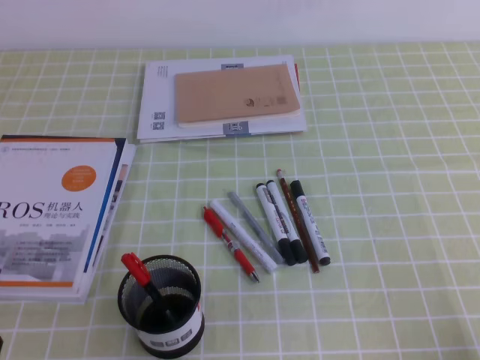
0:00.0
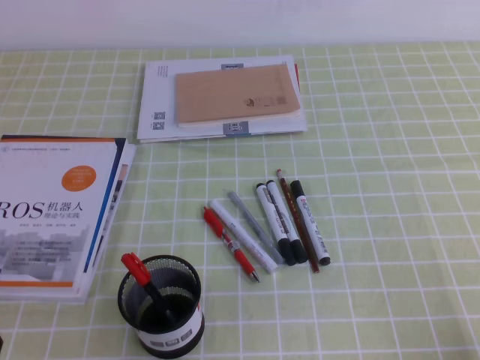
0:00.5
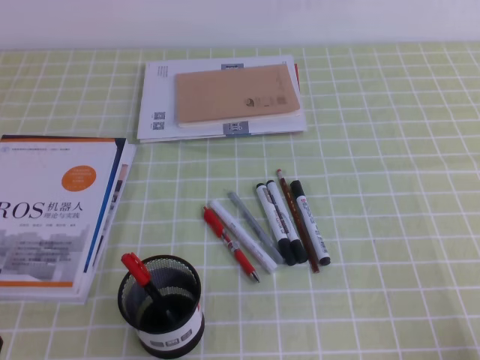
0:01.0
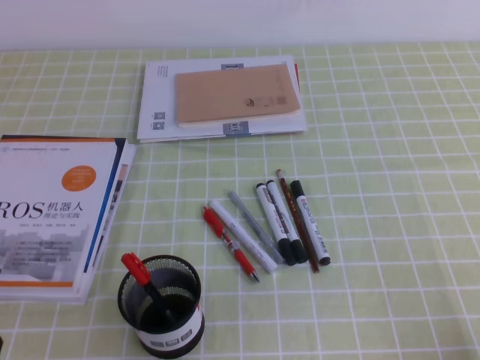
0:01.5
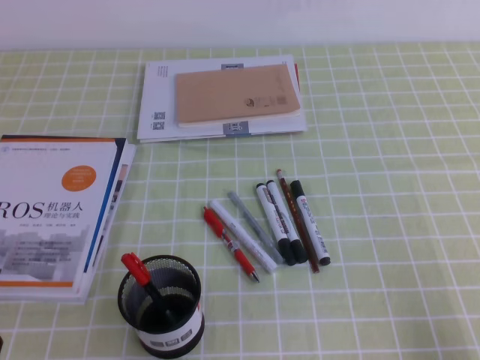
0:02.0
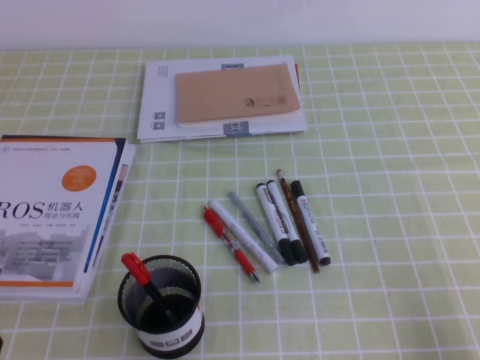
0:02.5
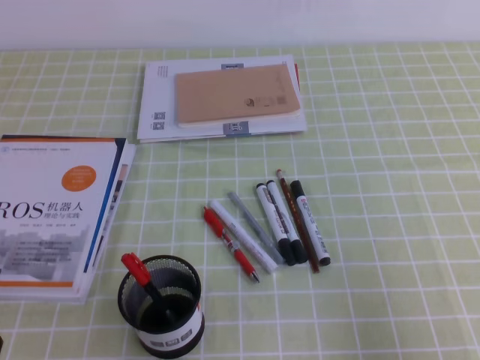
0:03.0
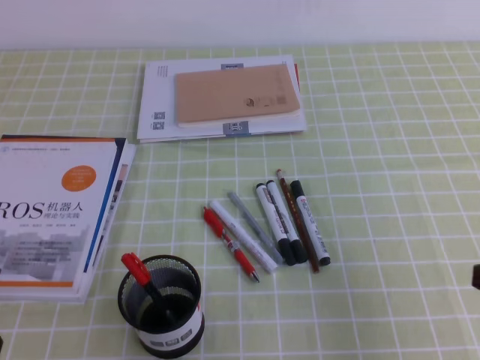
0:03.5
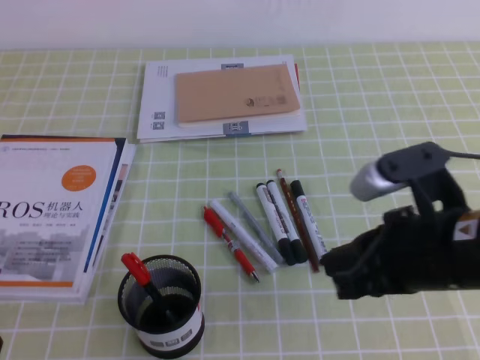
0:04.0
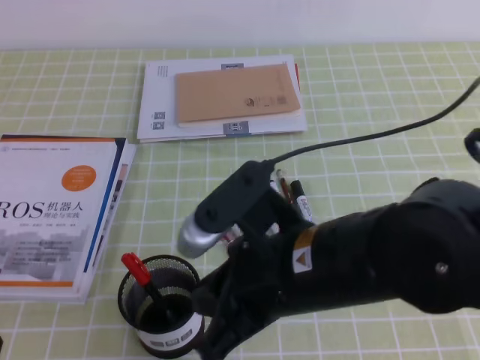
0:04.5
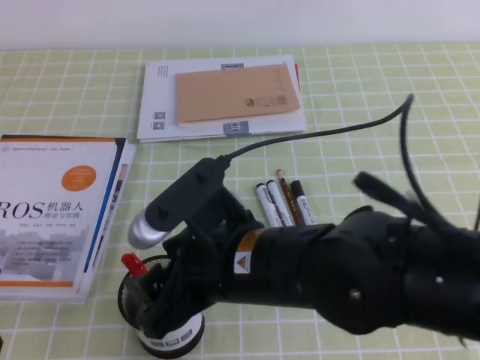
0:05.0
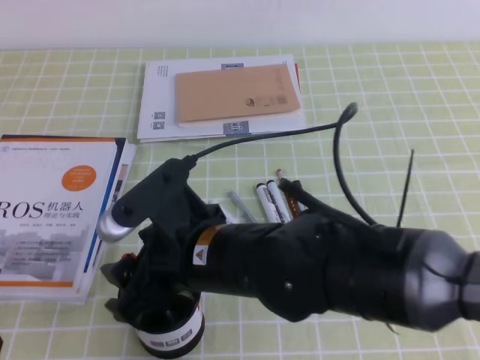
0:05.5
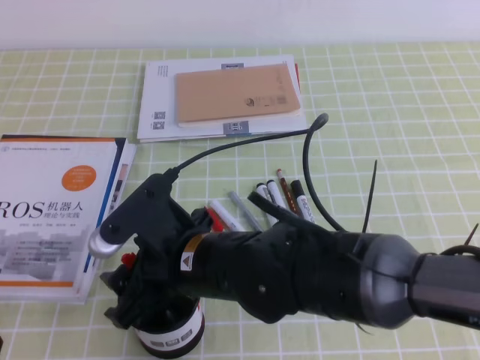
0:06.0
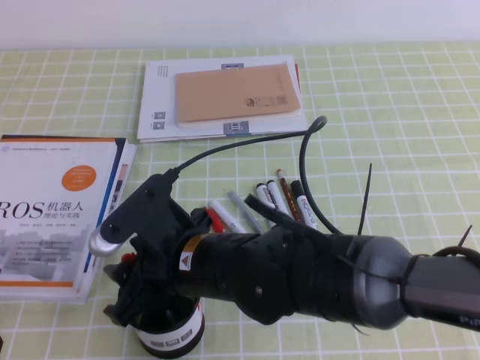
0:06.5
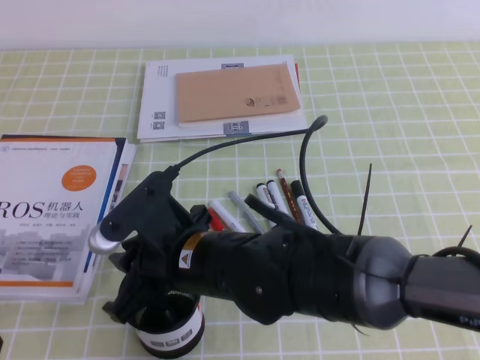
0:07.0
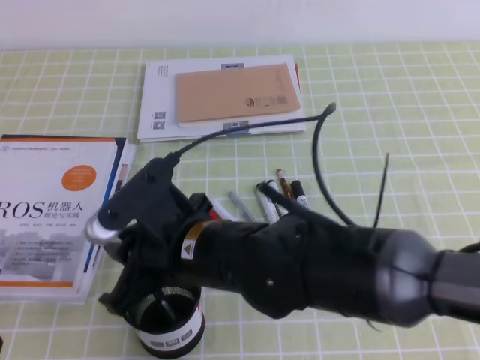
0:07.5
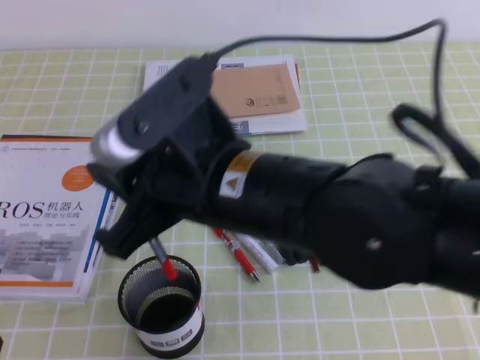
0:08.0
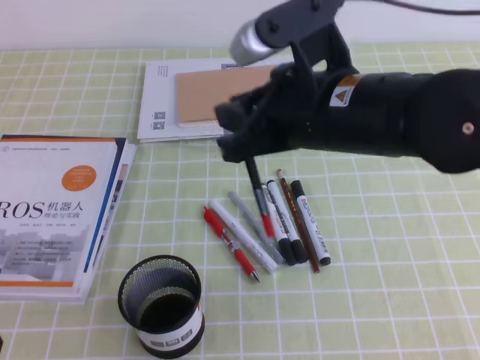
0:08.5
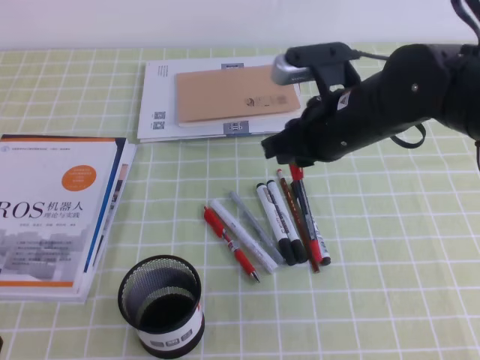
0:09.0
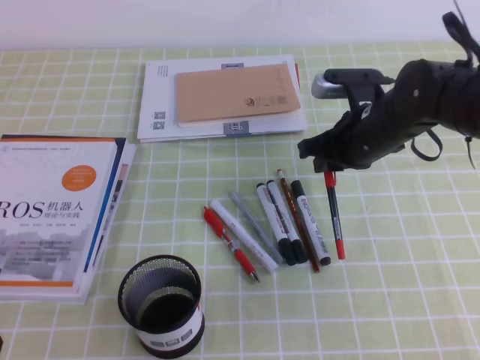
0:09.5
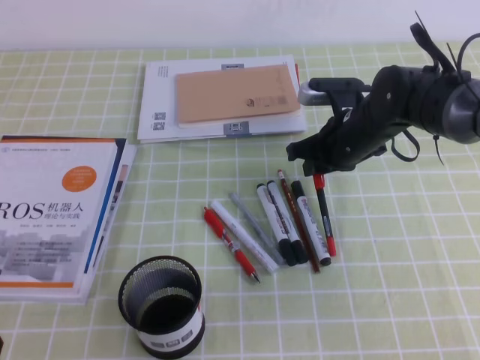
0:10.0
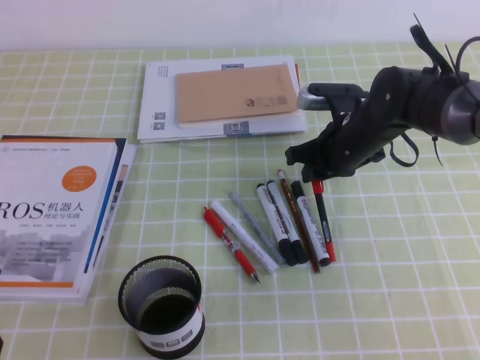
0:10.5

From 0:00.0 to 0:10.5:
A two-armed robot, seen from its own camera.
From 0:02.0 to 0:04.0: The right gripper goes about 20 cm to the left, forward and upward.
From 0:04.0 to 0:06.5: The right gripper moves to the left, approximately 20 cm, and opens.
From 0:06.5 to 0:08.5: The right gripper is displaced upward and to the right by some 15 cm, and closes up.
From 0:08.5 to 0:10.5: The right gripper is displaced downward, forward and to the right by about 25 cm.

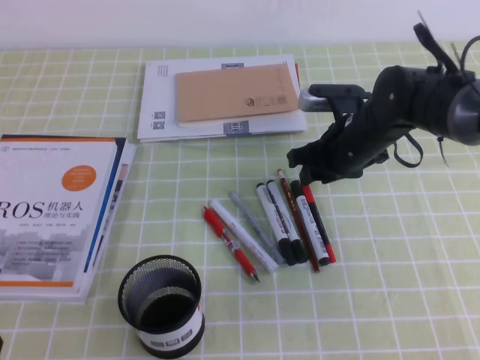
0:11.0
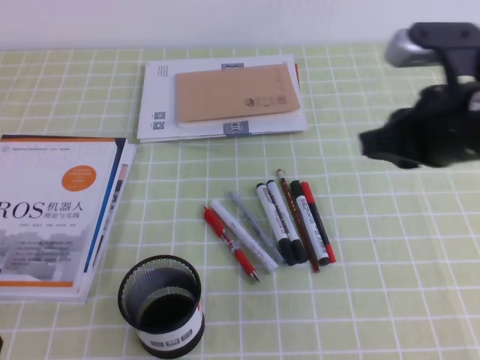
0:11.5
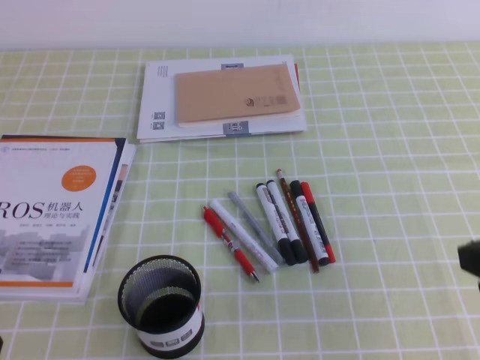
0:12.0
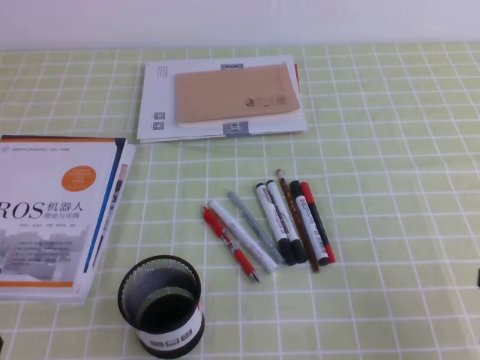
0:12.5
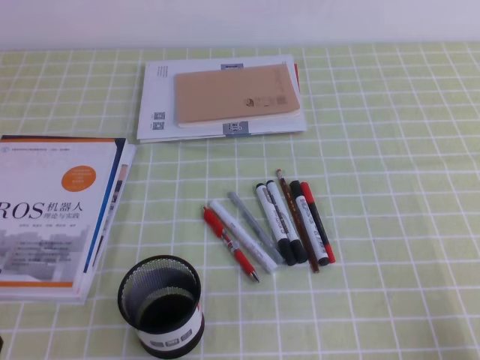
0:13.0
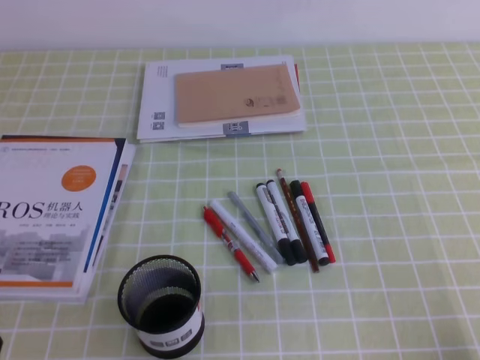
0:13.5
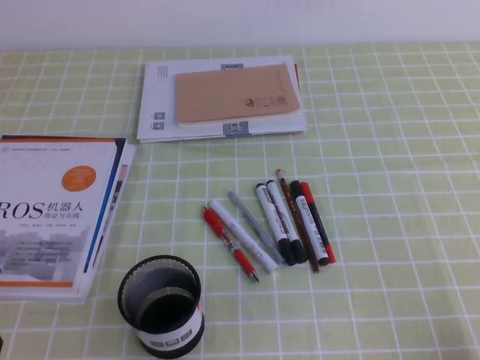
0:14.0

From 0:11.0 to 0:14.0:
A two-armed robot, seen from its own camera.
Step, from 0:11.0 to 0:14.0: Pick up the pen from the pen holder.
From 0:11.0 to 0:12.5: The right gripper heads backward and to the right, covering some 30 cm, and closes up.
